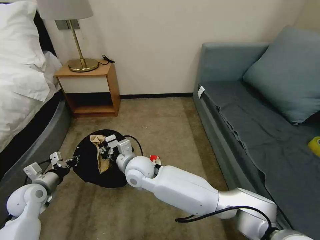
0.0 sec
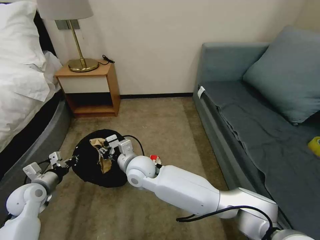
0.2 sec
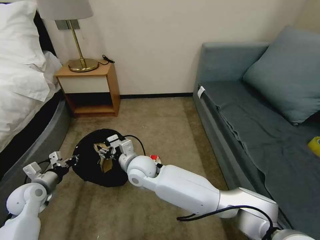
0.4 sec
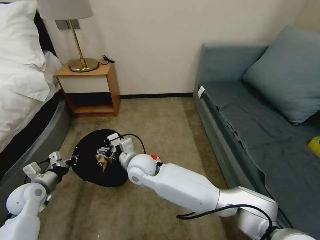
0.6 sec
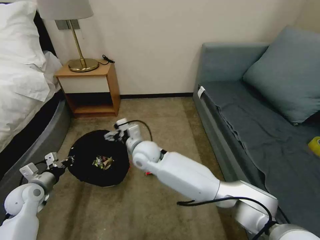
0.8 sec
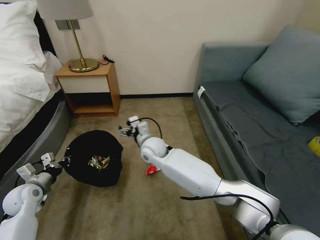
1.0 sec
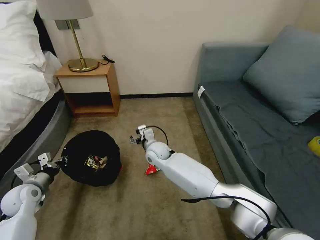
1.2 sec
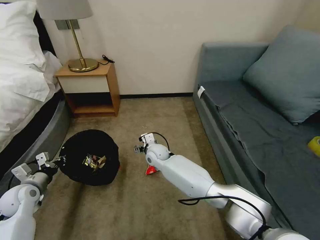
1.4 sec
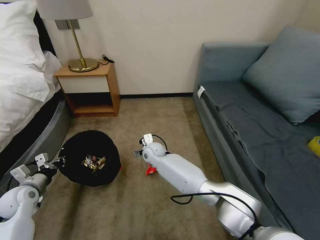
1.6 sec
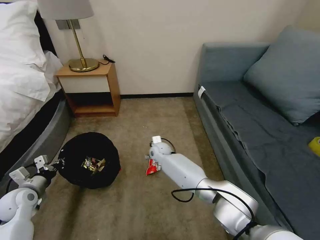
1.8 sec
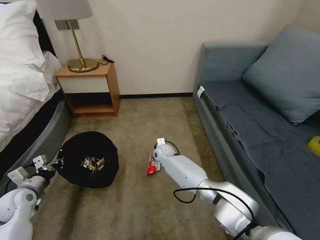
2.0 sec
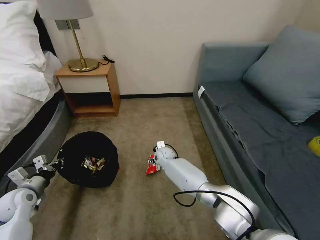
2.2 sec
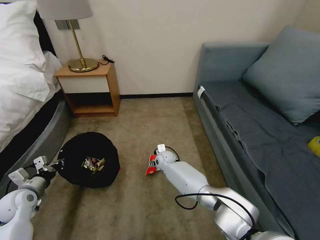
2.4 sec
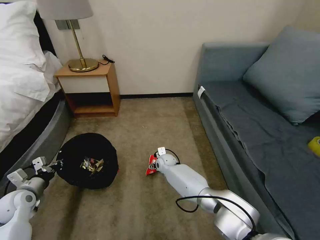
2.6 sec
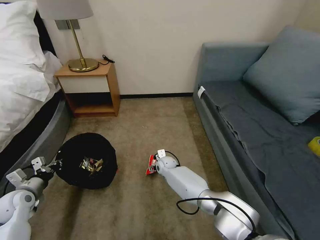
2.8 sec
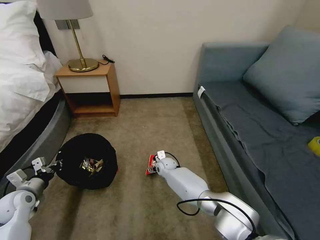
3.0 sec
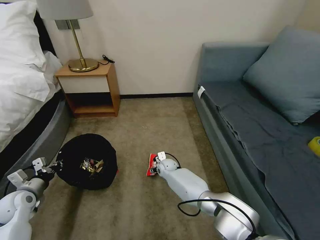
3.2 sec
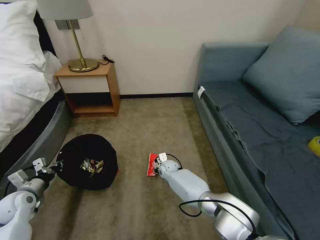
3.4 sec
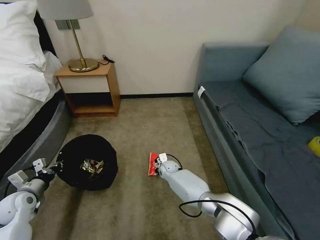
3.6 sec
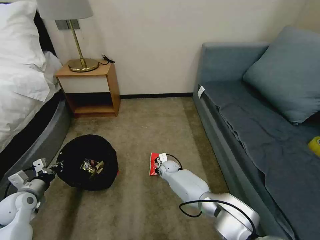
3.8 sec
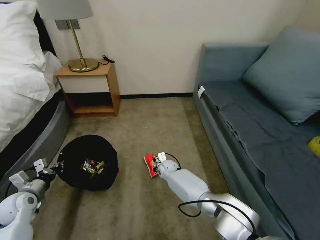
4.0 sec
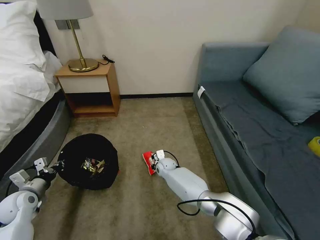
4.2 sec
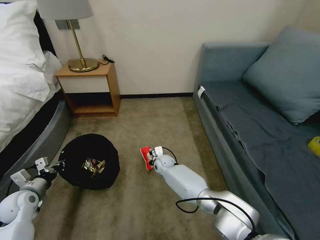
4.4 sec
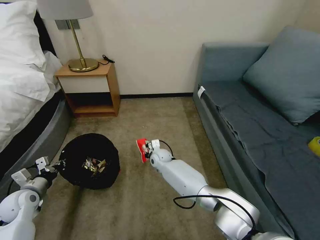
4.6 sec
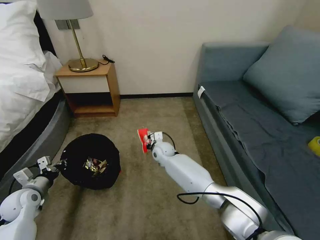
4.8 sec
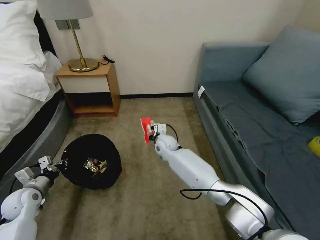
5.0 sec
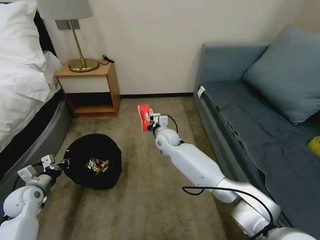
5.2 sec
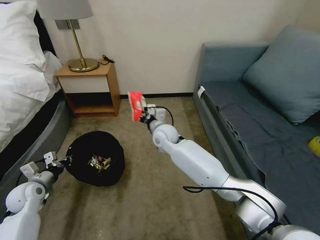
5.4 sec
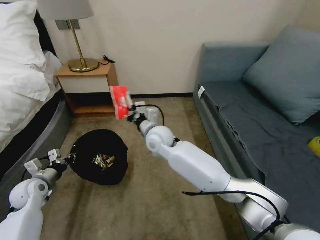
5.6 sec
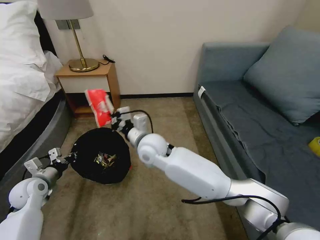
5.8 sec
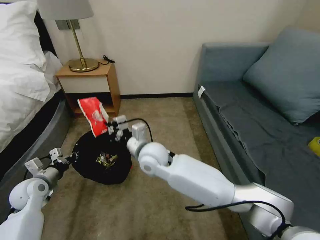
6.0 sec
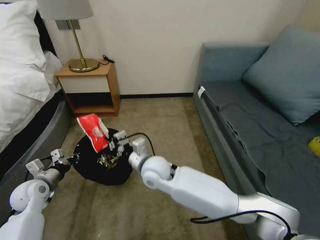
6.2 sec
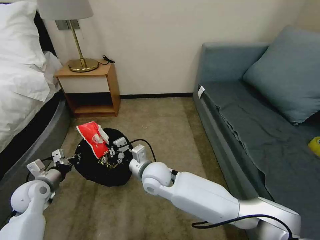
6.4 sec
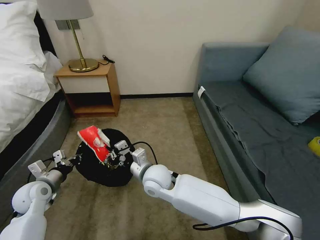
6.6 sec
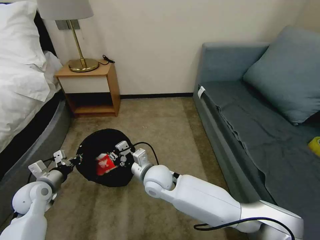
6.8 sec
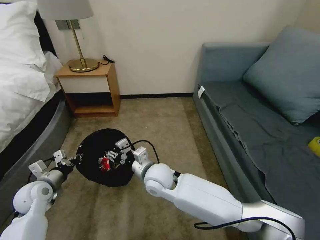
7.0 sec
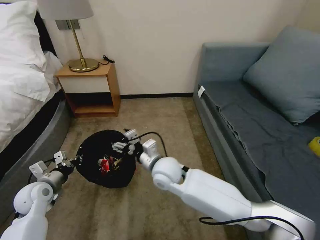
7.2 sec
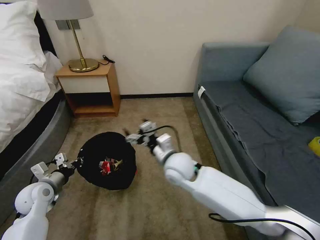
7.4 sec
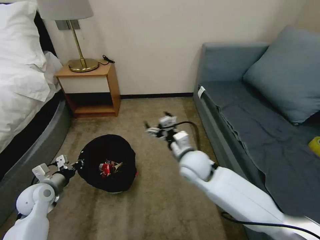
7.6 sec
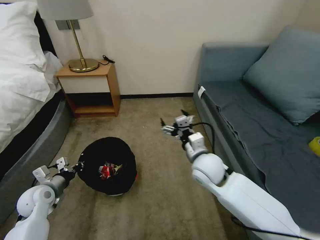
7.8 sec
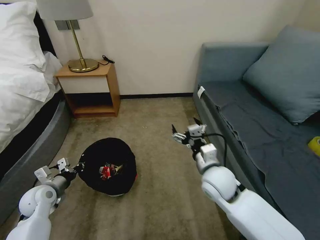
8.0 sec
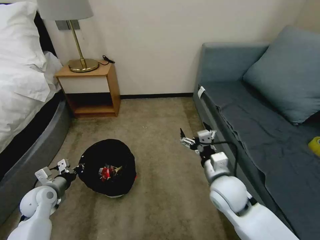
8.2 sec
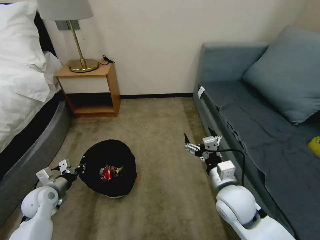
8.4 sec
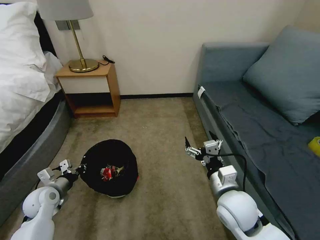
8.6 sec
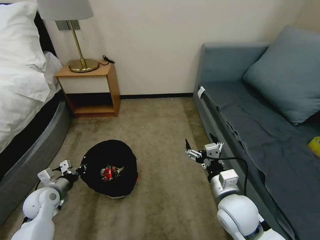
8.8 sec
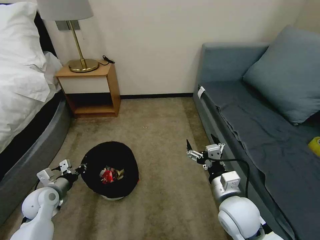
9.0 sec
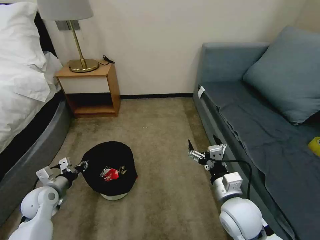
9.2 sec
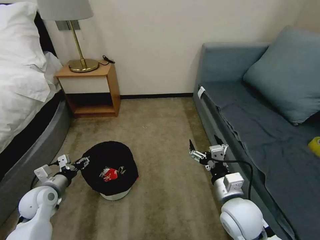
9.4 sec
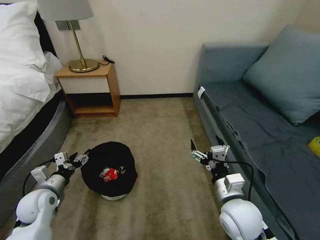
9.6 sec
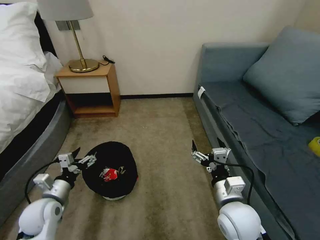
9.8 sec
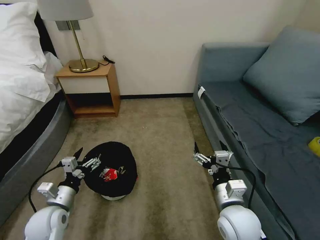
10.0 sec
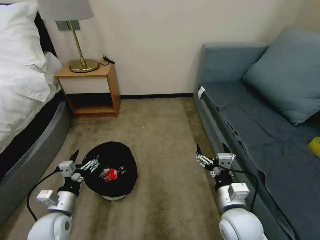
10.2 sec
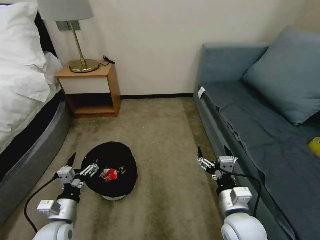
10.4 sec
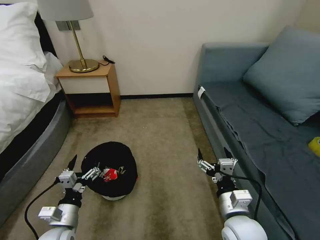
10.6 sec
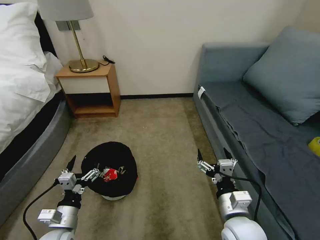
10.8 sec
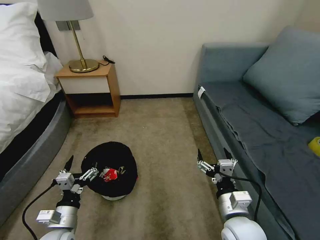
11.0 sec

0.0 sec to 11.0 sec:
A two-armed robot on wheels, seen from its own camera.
Task of the whole recording: Pick up the trash bin, then pick up the garbage on the floor and place it into the trash bin.
0.0 sec to 1.6 sec: The right gripper is displaced forward and downward by approximately 15 cm, and opens.
1.6 sec to 3.2 sec: The right gripper travels downward and to the right by about 15 cm.
3.2 sec to 4.8 sec: The right gripper is displaced upward by some 10 cm, and closes up.
4.8 sec to 6.2 sec: The right gripper goes roughly 20 cm backward and upward.
6.2 sec to 7.8 sec: The right gripper moves to the right, approximately 15 cm, and opens.
7.8 sec to 9.4 sec: The right gripper is displaced backward and to the right by about 15 cm. The left gripper opens up.
9.4 sec to 11.0 sec: The left gripper heads backward and to the right, covering roughly 15 cm, and opens its fingers.

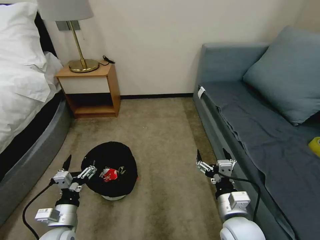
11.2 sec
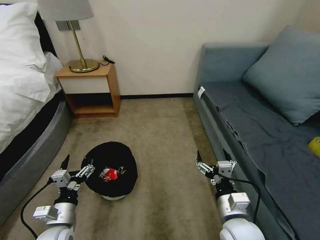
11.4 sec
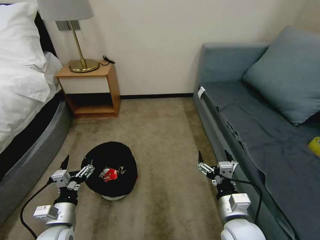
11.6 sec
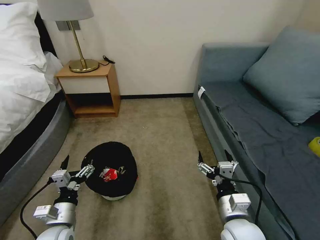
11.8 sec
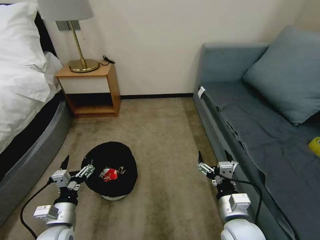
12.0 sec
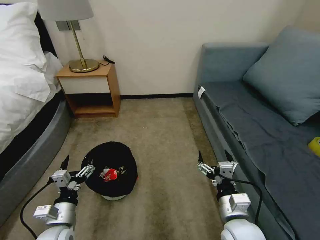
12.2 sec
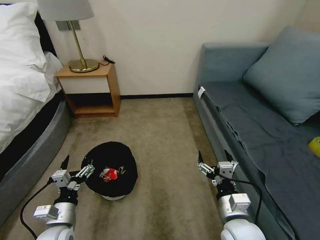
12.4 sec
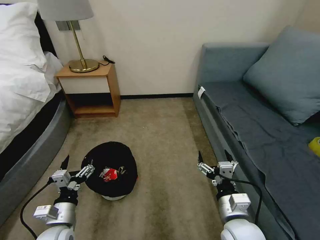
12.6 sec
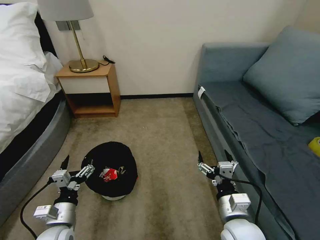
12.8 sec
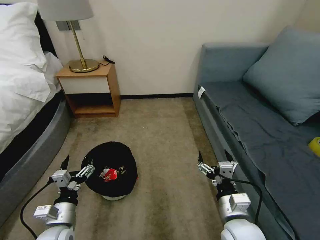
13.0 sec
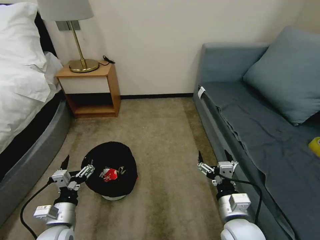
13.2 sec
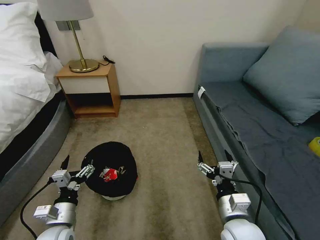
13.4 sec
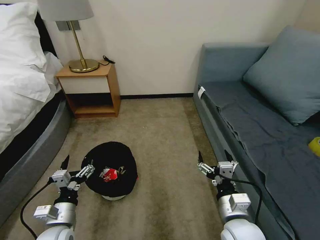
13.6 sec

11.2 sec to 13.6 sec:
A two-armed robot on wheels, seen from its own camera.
Task of the whole recording: Pick up the trash bin, then pick up the garbage on the floor and place it into the trash bin.
11.2 sec to 13.6 sec: The two grippers keep their place.

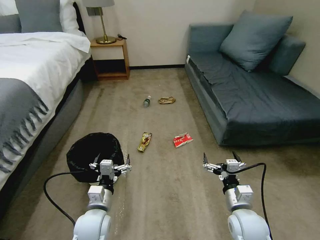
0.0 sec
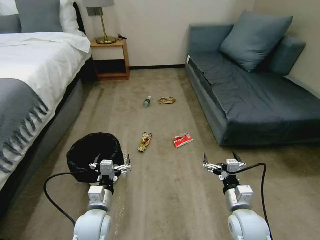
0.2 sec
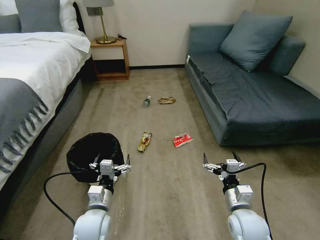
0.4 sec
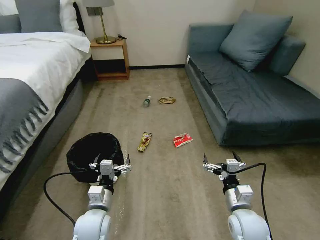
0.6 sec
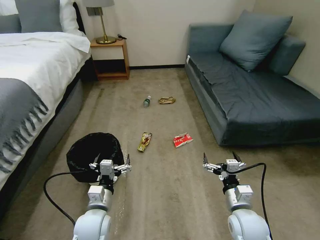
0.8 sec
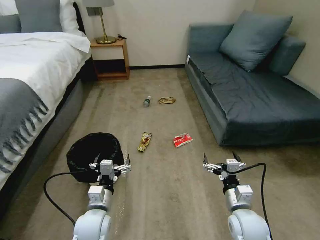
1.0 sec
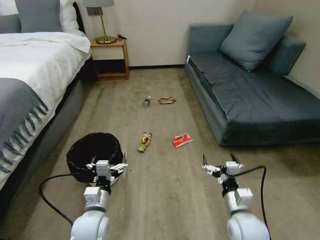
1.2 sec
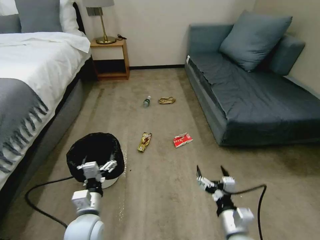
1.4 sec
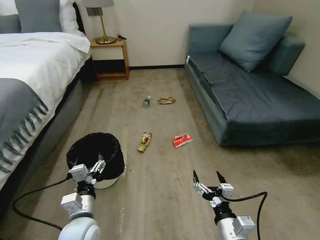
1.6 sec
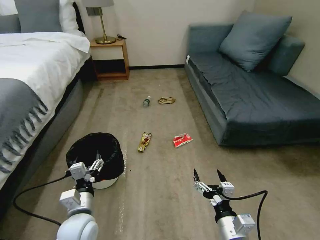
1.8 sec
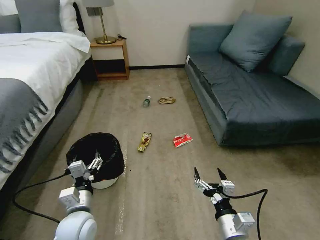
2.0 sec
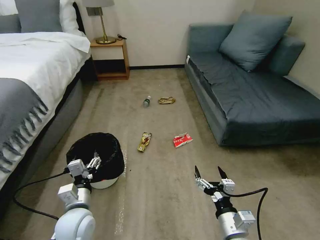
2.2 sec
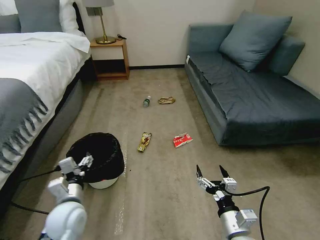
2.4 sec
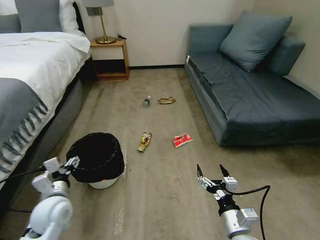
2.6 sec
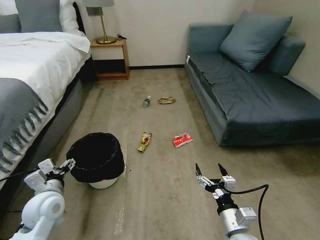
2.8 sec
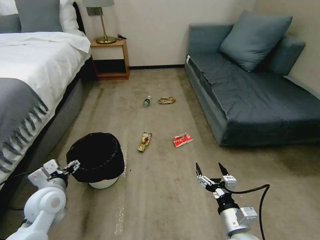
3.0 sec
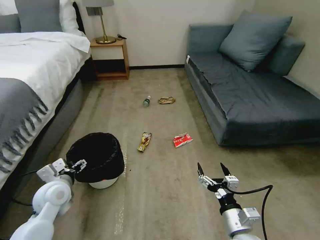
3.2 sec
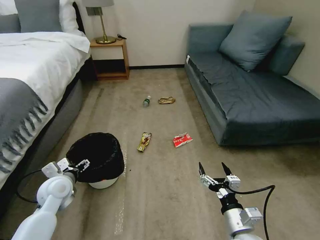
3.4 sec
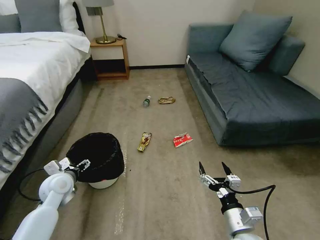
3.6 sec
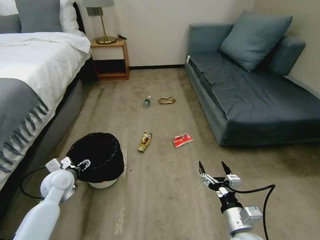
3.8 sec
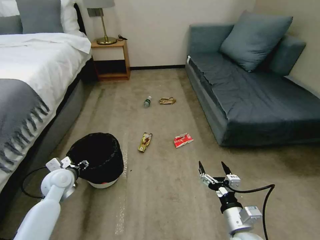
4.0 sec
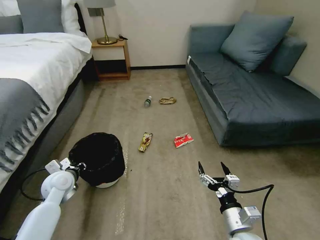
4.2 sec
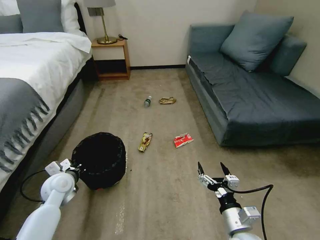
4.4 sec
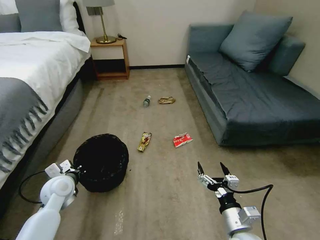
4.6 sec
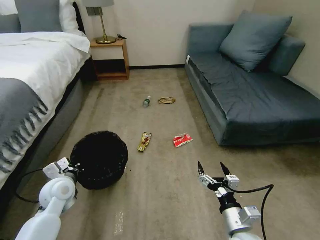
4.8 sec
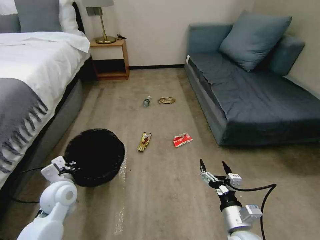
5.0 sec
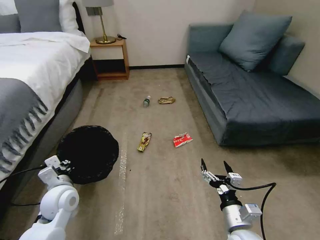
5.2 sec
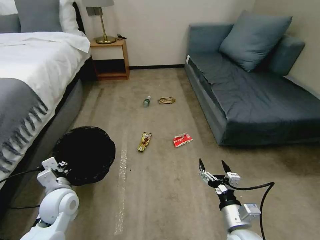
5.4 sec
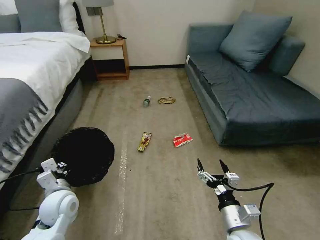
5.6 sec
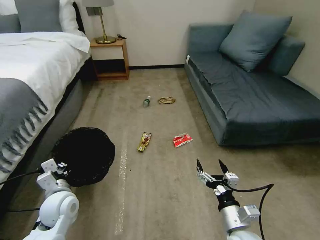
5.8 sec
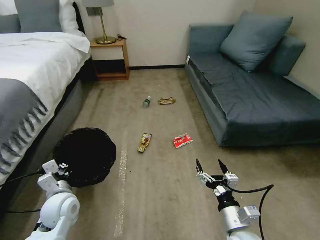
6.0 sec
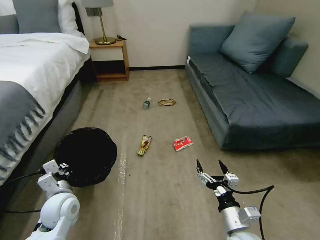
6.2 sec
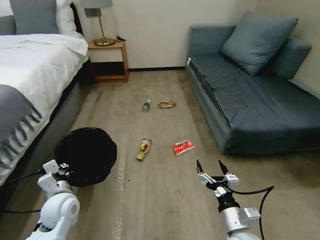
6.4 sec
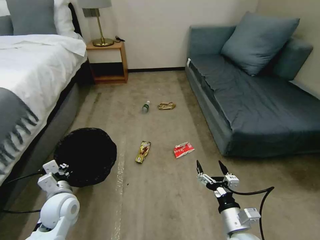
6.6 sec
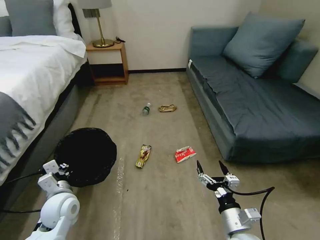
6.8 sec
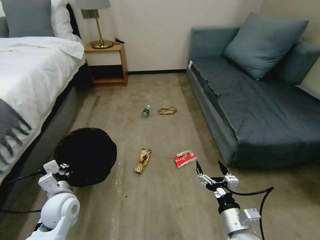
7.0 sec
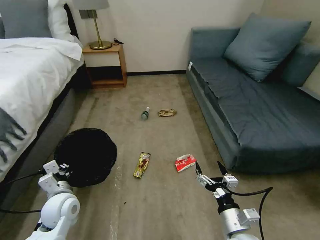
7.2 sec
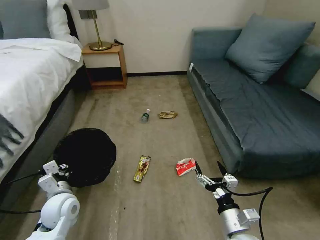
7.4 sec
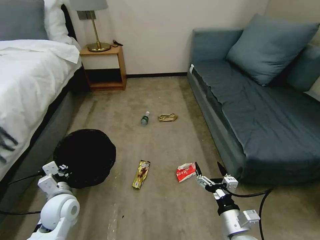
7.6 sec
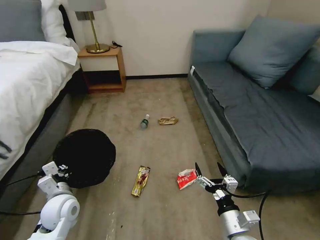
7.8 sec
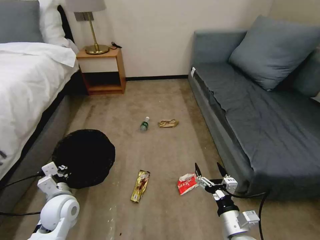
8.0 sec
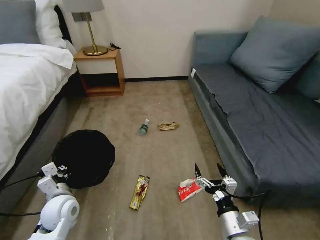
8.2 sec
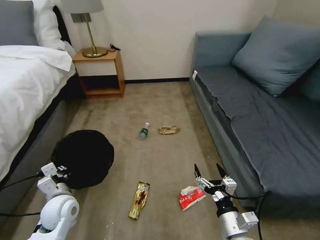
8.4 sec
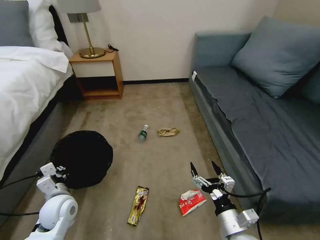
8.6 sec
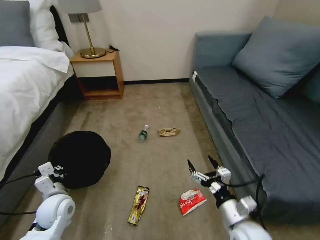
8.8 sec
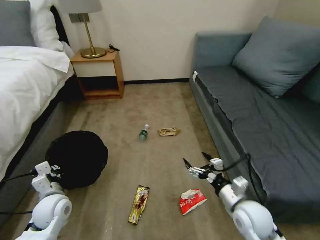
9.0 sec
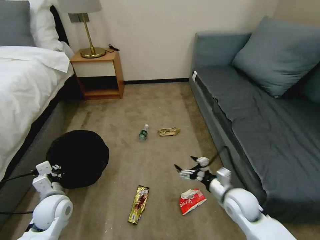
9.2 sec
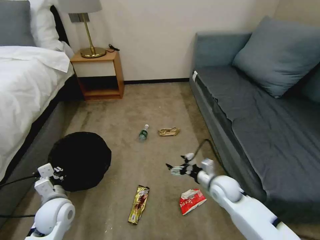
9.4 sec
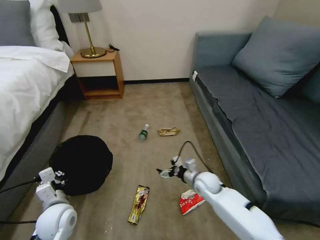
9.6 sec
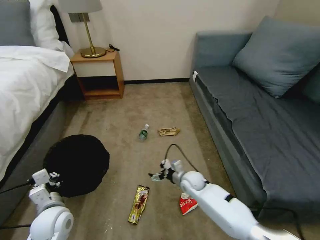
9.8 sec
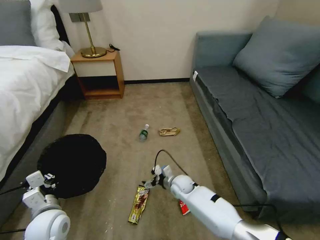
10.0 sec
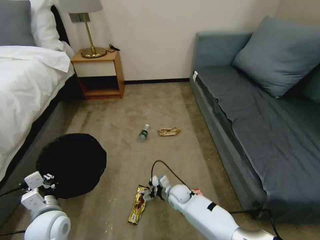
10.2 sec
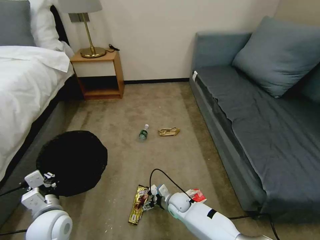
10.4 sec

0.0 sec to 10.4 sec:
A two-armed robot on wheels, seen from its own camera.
Task of the whole recording: Pick up the trash bin, then pick up the garbage on the floor and place it into the trash bin.
1.4 sec to 3.0 sec: The left gripper moves to the left and forward, roughly 15 cm.
3.0 sec to 4.4 sec: The left gripper goes approximately 5 cm forward, and closes up.
4.4 sec to 6.0 sec: The left gripper shifts approximately 5 cm backward.
7.4 sec to 9.0 sec: The right gripper shifts approximately 10 cm forward.
9.0 sec to 10.4 sec: The left gripper heads backward, covering roughly 5 cm; the right gripper travels downward, to the left and forward by approximately 30 cm.
